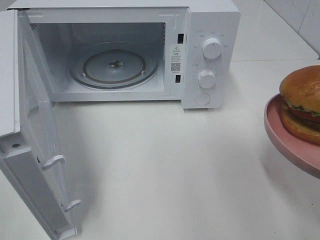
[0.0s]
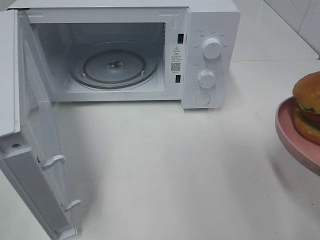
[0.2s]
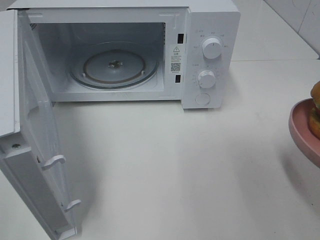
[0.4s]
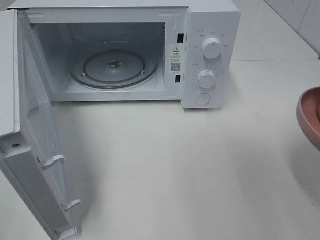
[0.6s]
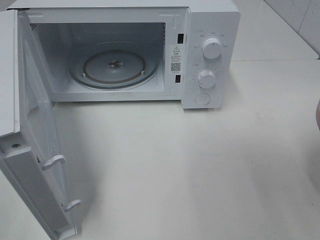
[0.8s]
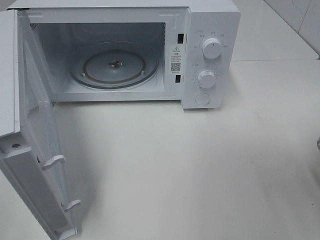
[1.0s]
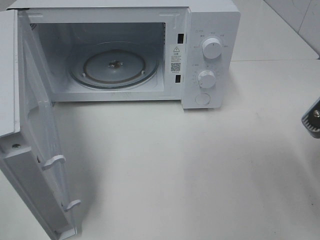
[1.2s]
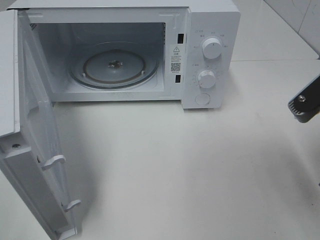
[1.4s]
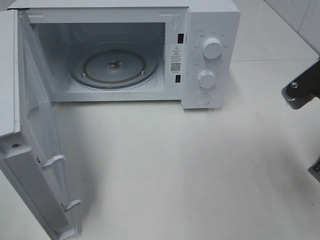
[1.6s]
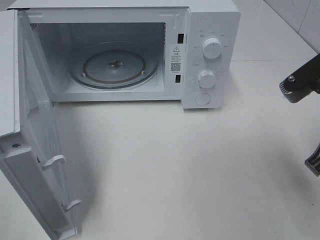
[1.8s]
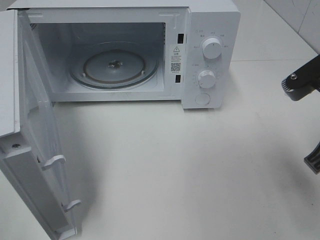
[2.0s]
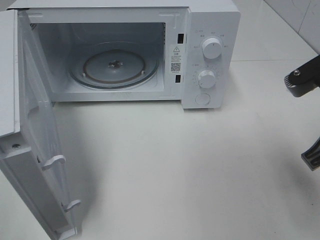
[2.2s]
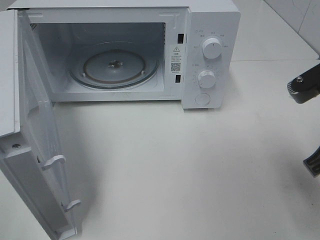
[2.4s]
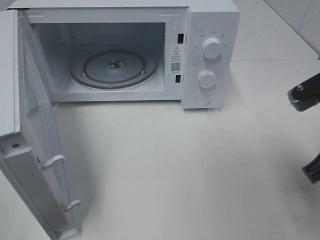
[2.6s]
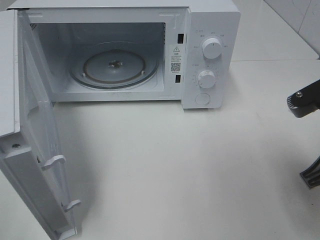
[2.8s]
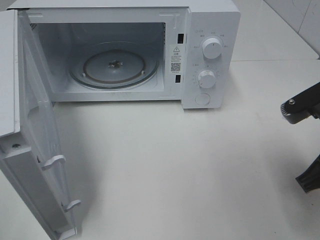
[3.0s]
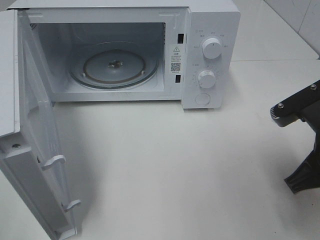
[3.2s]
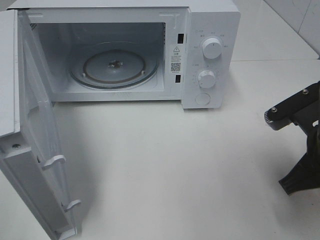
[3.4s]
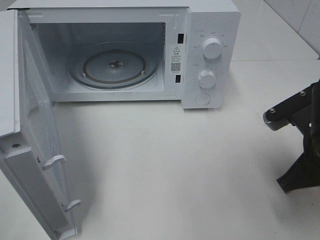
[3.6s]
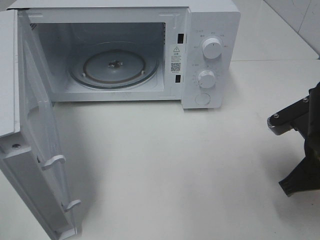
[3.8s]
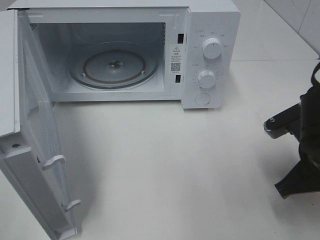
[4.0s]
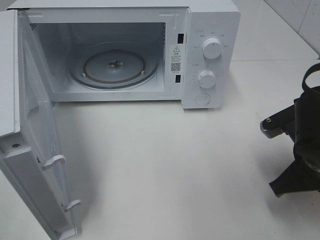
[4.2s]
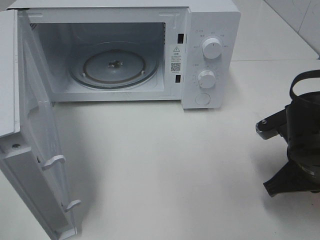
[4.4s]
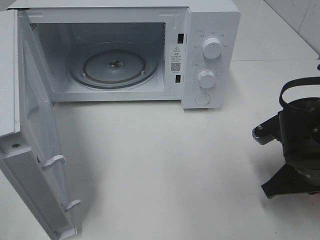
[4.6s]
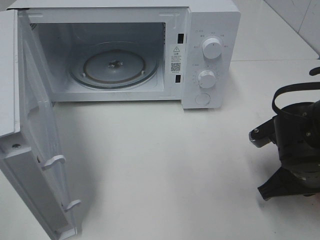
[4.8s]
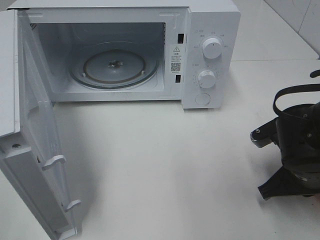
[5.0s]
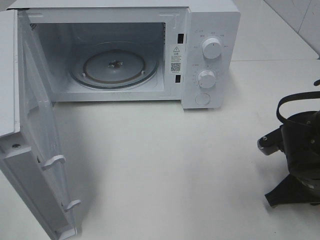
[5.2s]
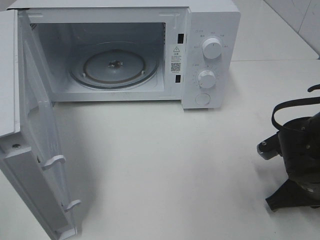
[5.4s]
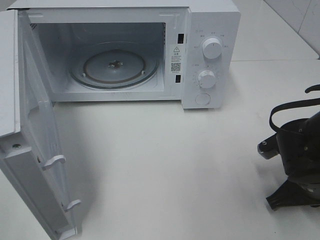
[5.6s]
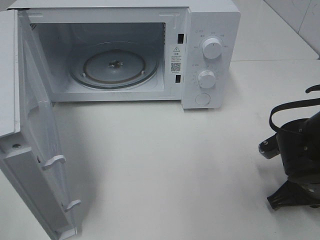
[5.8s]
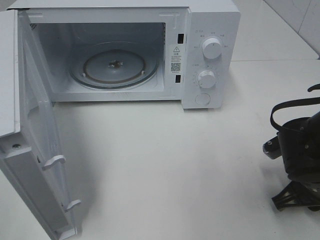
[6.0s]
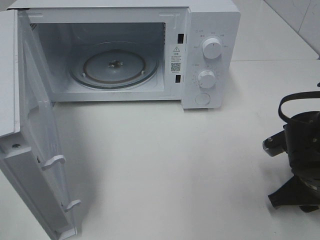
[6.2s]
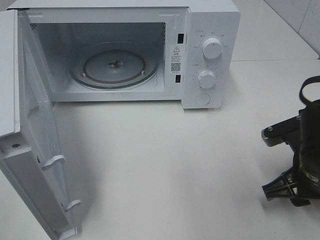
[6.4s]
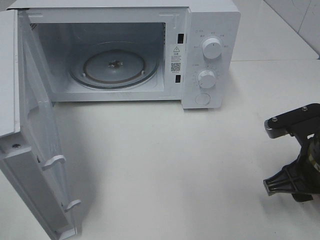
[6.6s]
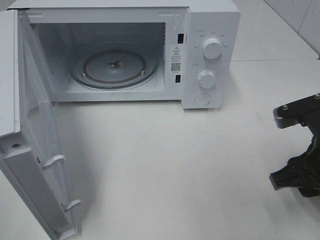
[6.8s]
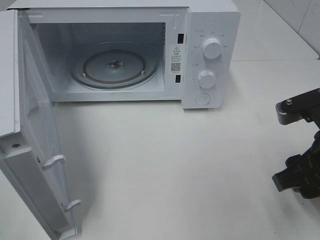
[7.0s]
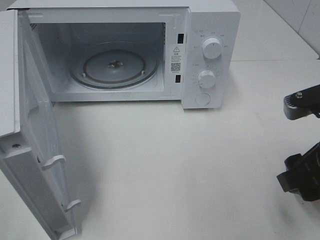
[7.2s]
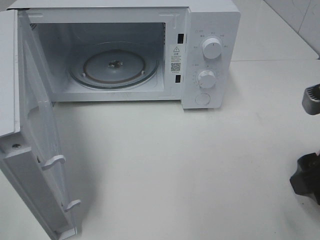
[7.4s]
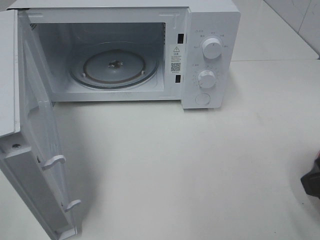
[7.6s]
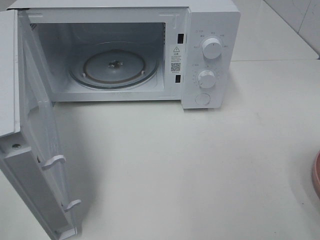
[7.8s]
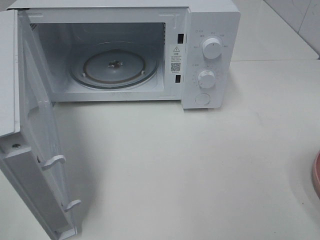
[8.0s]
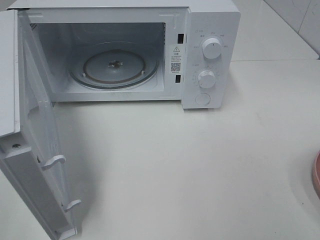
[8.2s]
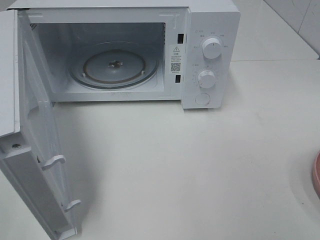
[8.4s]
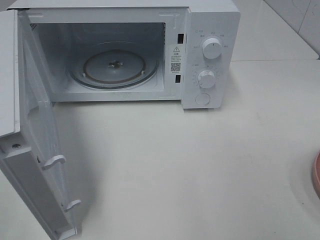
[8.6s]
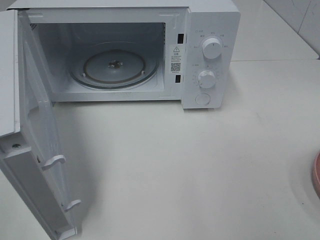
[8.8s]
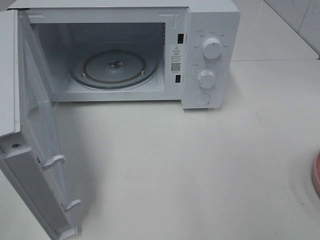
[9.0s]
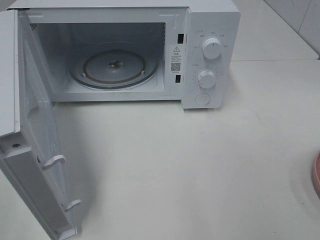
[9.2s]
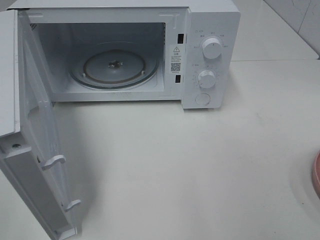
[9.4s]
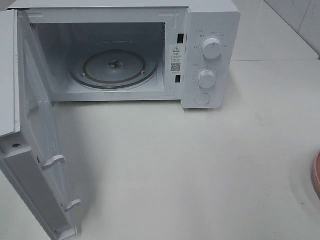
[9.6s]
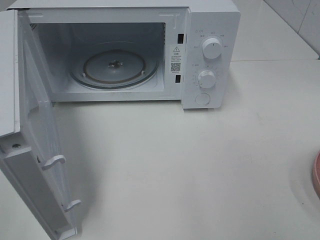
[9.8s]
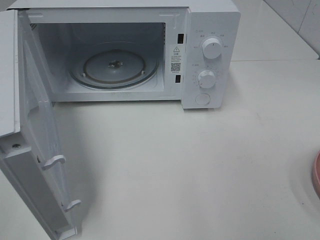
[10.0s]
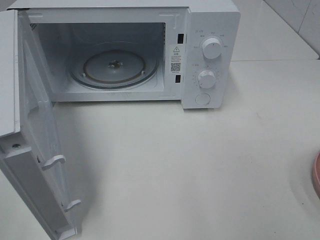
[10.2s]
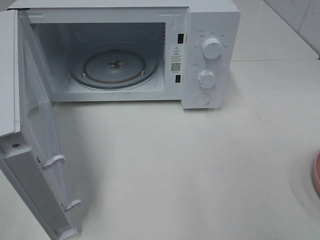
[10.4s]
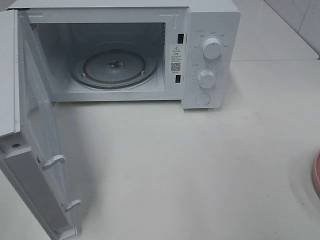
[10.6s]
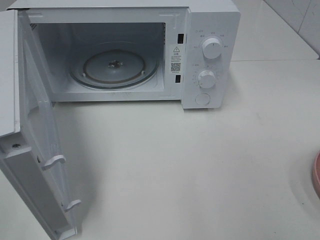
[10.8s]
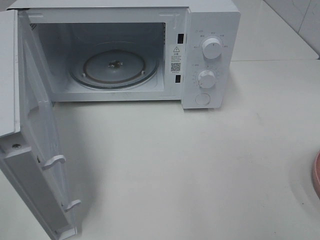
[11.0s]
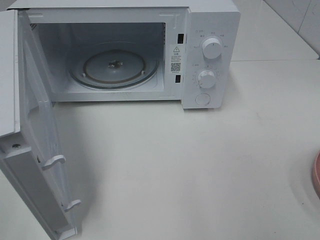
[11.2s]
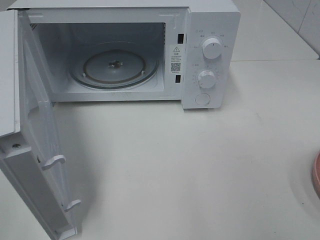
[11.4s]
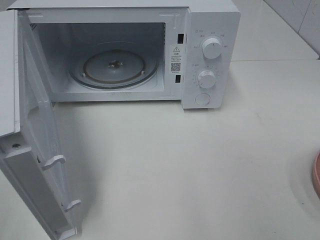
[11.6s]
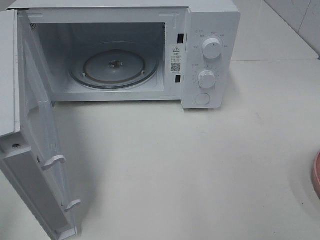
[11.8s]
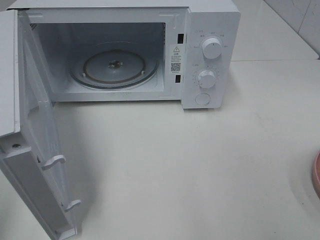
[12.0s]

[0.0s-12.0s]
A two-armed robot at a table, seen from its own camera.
Task of the whole recording: Heat the burger.
Step, 0.0s to 6.0s: Right hand: place the plate on the table.
0.0s to 1.6s: The right gripper moves forward, approximately 5 cm.
1.6s to 3.0s: There are only small adjustments of the grippers.
3.0s to 4.4s: The right gripper goes approximately 5 cm downward.
4.4s to 6.0s: The right gripper opens up.
6.0s to 7.6s: The right gripper shifts roughly 20 cm upward and backward, and opens.
7.6s to 9.0s: The right gripper travels backward and to the right by approximately 15 cm.

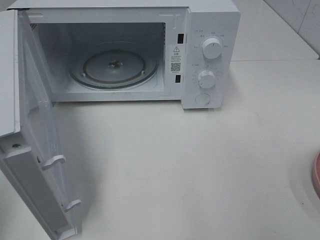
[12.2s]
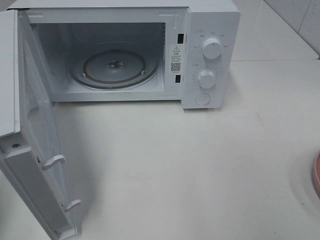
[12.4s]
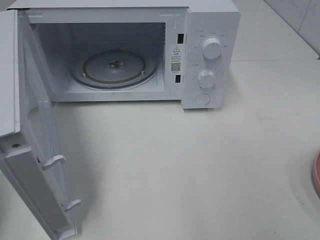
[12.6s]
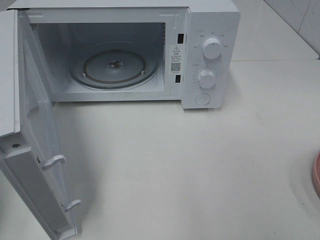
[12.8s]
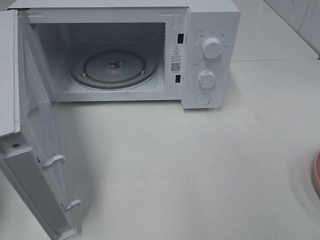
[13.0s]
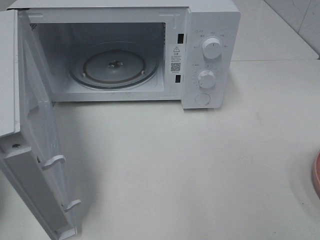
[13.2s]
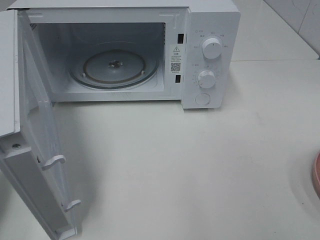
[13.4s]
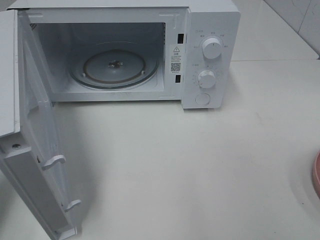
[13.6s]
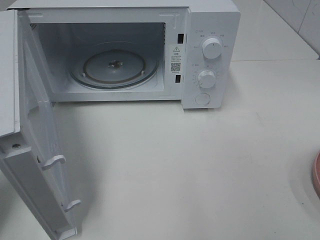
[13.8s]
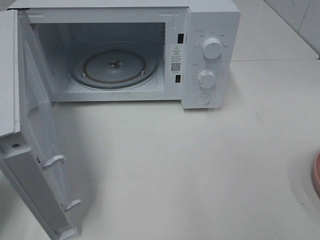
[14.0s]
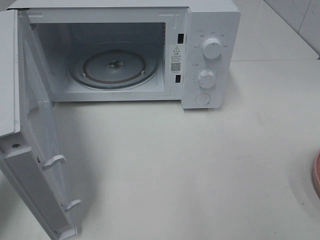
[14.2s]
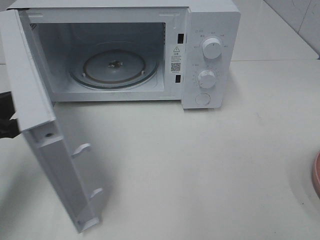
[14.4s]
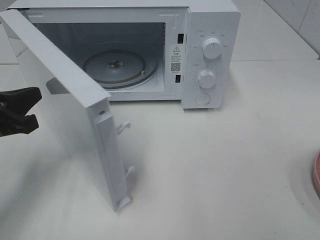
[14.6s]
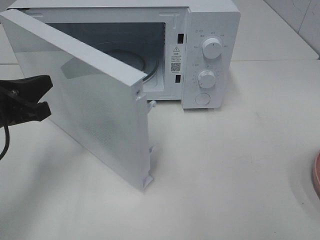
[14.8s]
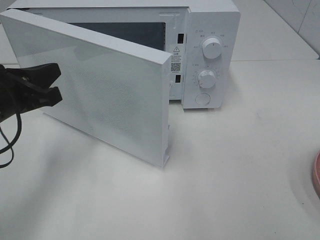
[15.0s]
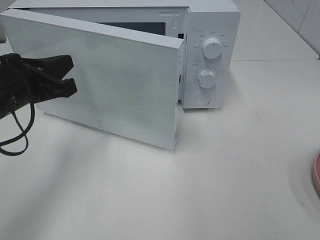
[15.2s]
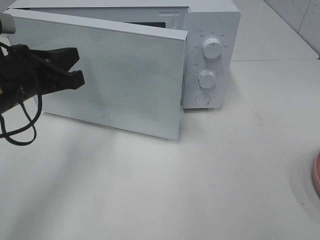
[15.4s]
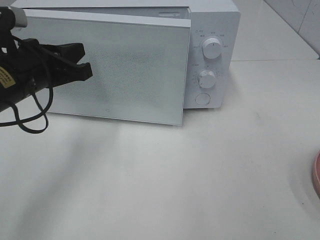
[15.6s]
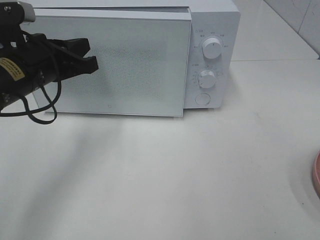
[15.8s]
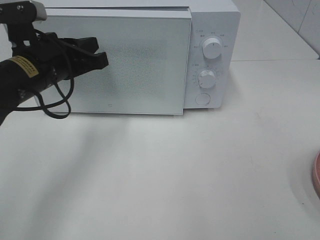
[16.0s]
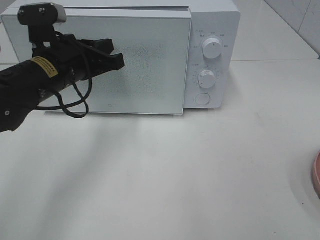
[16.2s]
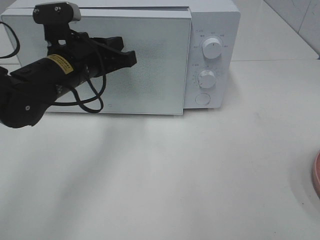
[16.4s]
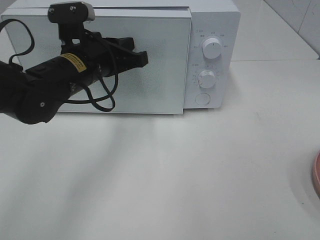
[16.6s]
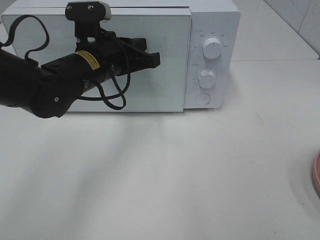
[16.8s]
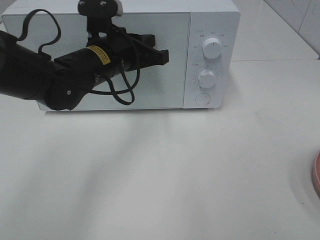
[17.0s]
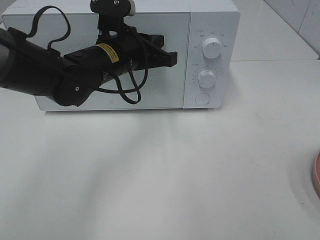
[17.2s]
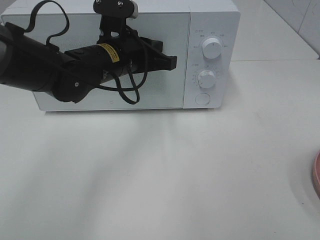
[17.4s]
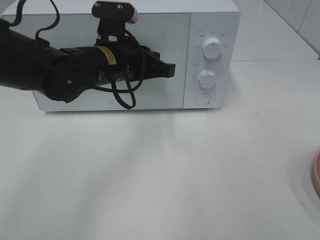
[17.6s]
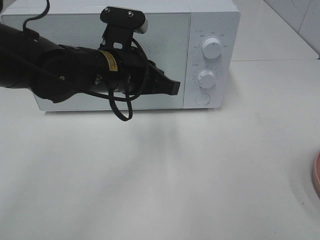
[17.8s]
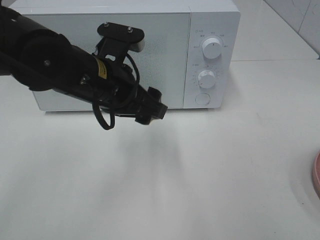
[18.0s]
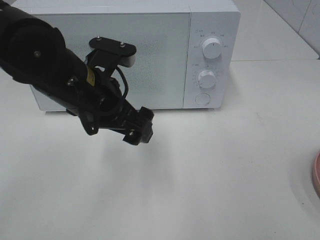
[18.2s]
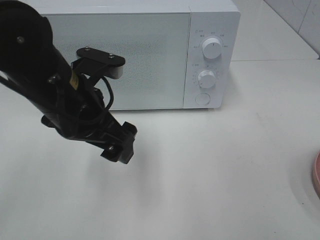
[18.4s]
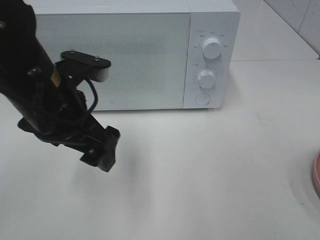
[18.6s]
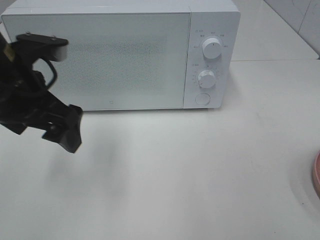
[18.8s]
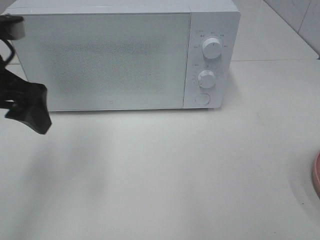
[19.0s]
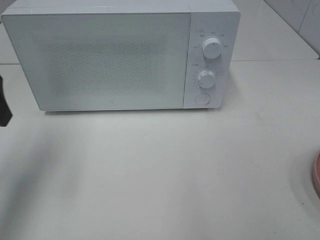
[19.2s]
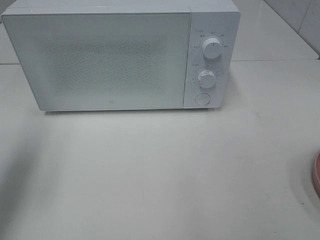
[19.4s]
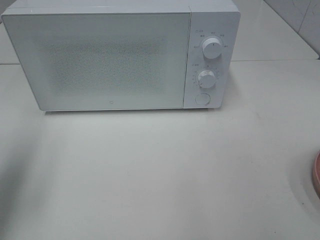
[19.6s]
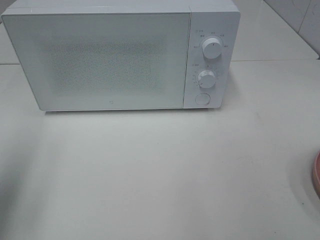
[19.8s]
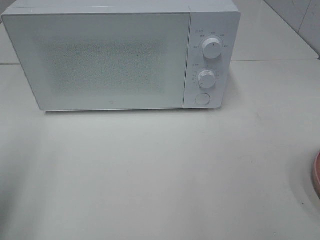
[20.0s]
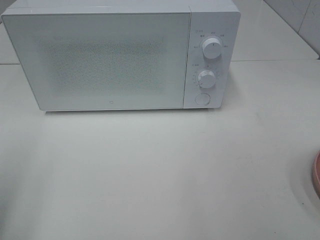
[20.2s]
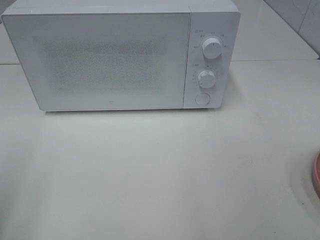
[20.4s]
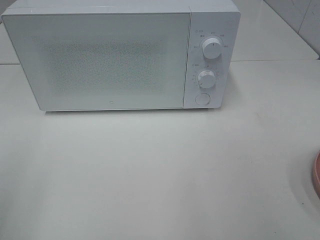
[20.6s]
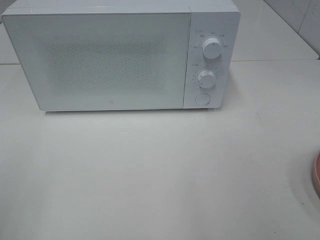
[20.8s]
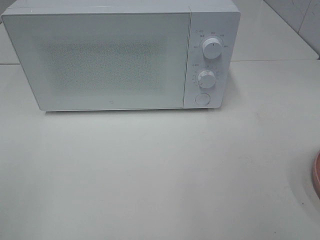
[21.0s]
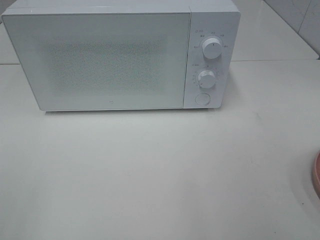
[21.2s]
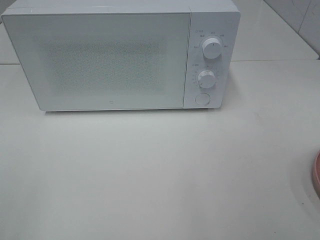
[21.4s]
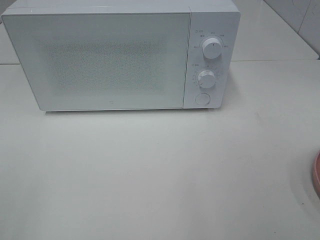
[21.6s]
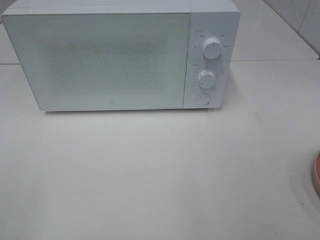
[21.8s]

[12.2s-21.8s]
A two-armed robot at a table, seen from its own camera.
Task of the whole recording: Heat the burger.
Step, 12.2s to 17.6s: Left hand: close the microwave door.
12.2s to 13.8s: The left gripper goes some 15 cm forward and downward.
13.8s to 15.4s: The left gripper travels to the right and forward by some 15 cm.
15.4s to 17.0s: The left gripper heads to the right and forward, covering approximately 15 cm.
17.0s to 18.6s: The left gripper goes about 15 cm backward and to the left, and opens.
18.6s to 20.2s: The left gripper travels to the left and backward by roughly 25 cm.

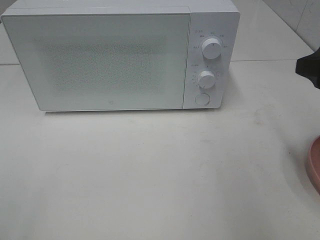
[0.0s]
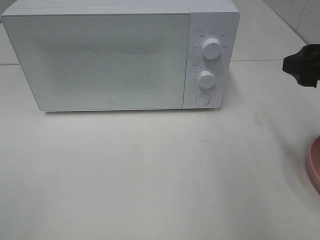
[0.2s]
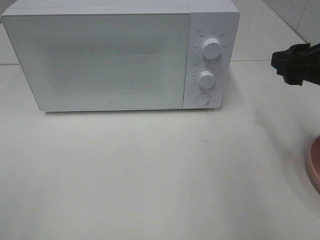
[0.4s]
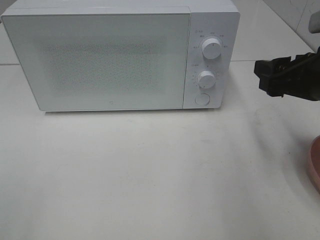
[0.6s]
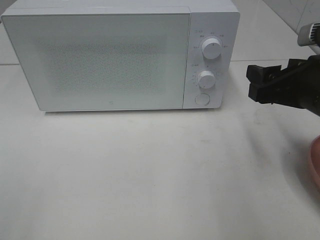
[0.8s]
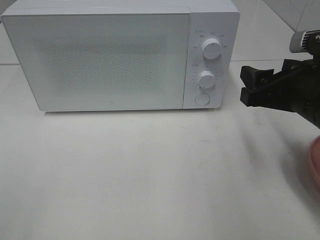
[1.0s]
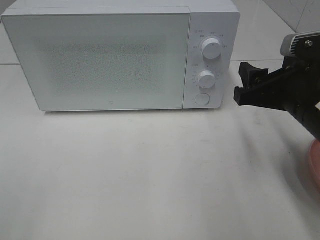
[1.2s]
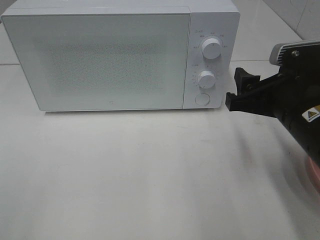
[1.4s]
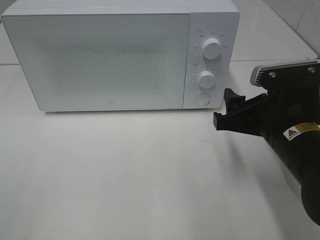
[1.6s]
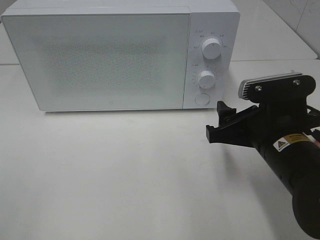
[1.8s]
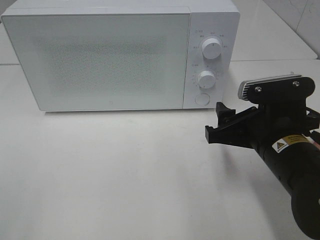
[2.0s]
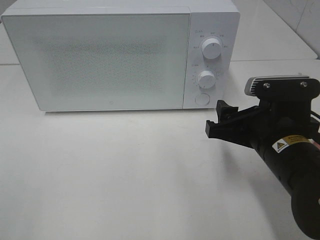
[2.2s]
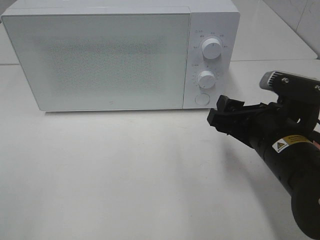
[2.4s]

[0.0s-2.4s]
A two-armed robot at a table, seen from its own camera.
Task of the whole recording: Heat the burger.
0.0s to 1.2s: The right gripper shifts some 10 cm downward and to the left.
1.2s to 2.4s: The right gripper ends up about 5 cm from where it was.
